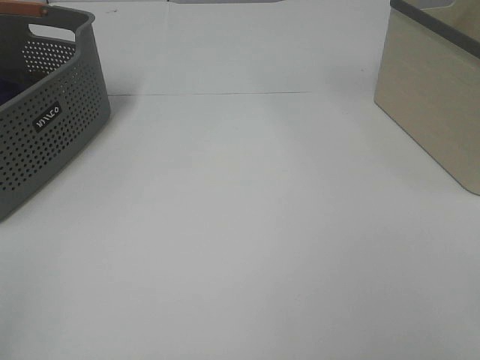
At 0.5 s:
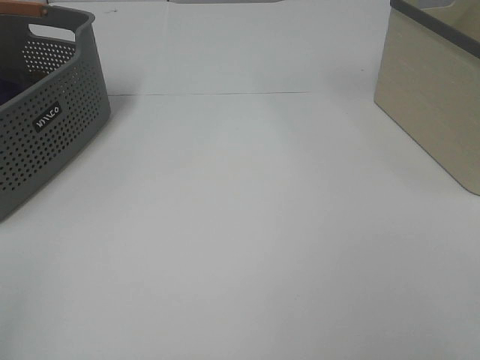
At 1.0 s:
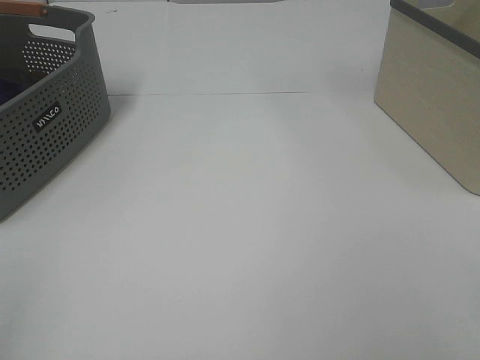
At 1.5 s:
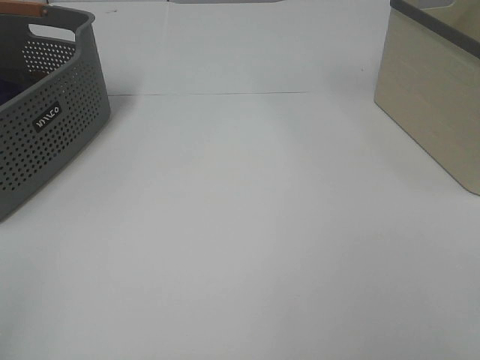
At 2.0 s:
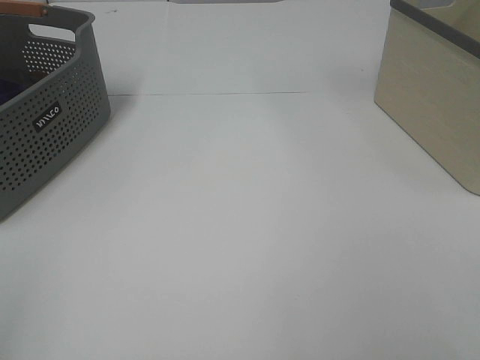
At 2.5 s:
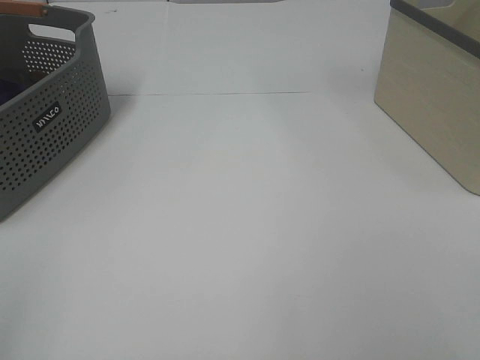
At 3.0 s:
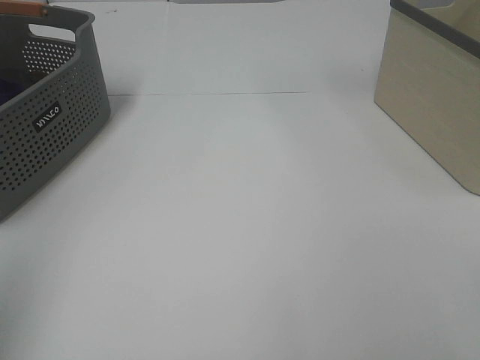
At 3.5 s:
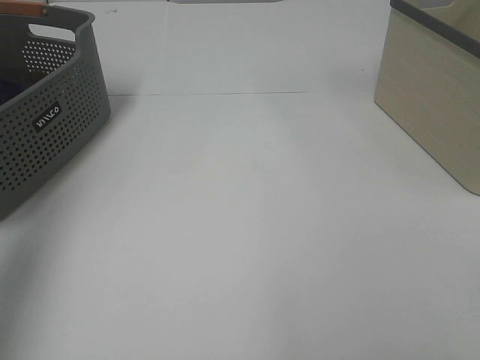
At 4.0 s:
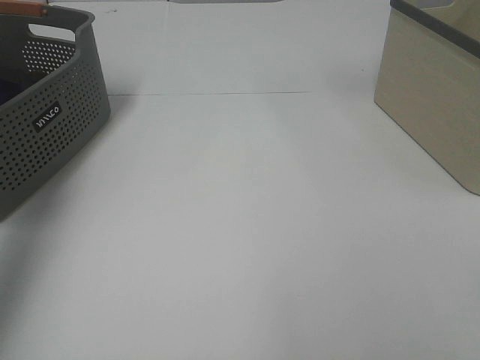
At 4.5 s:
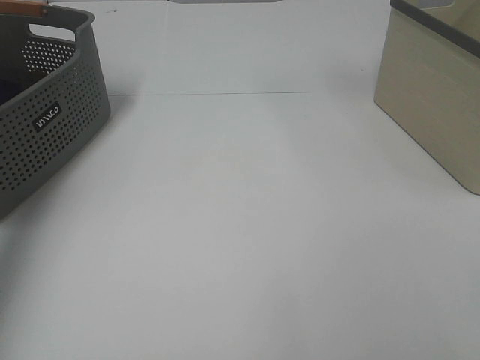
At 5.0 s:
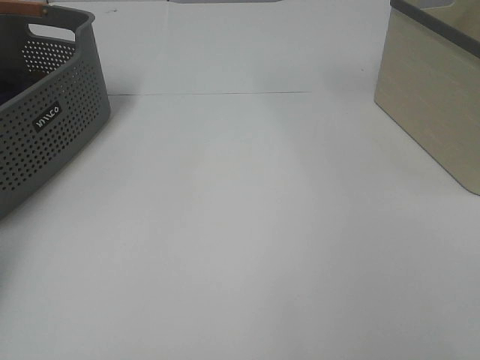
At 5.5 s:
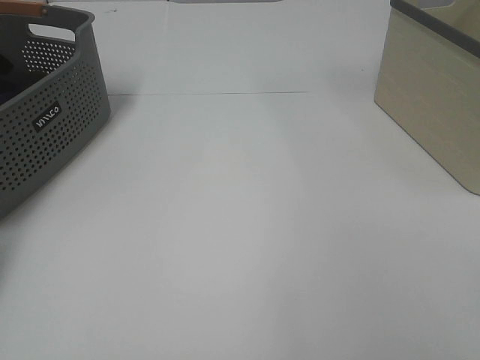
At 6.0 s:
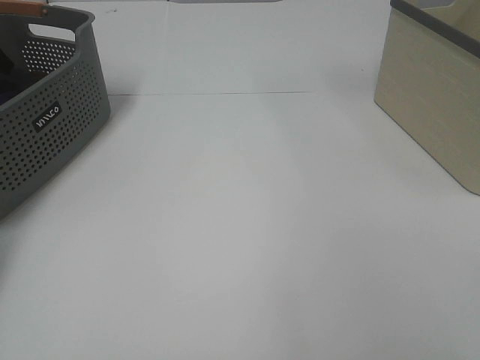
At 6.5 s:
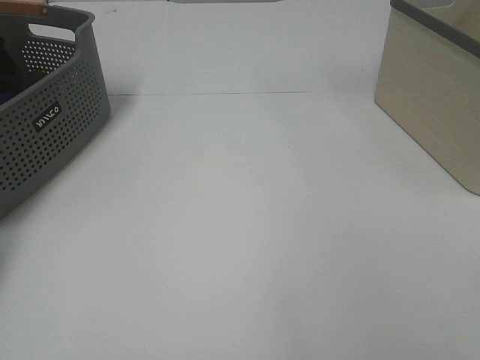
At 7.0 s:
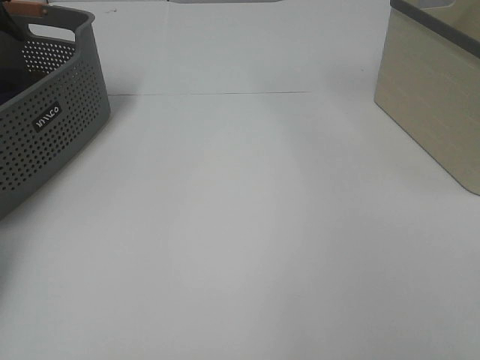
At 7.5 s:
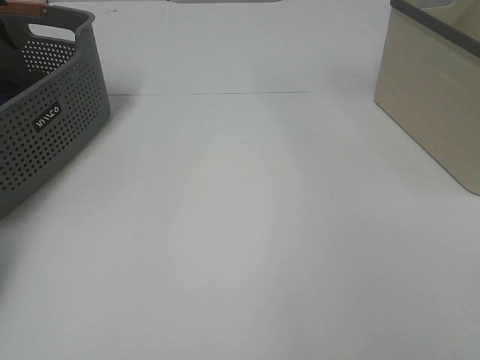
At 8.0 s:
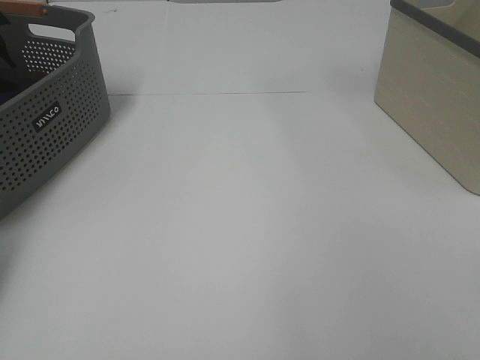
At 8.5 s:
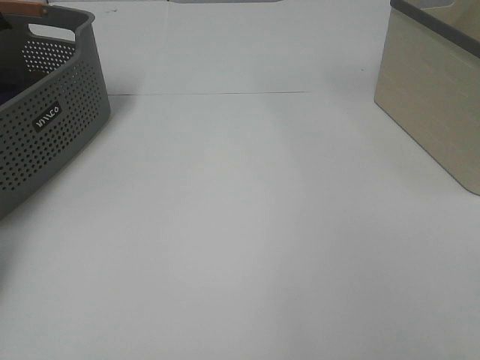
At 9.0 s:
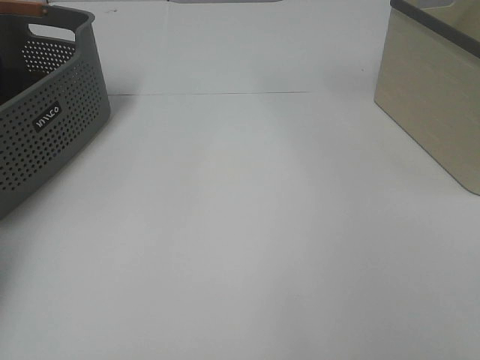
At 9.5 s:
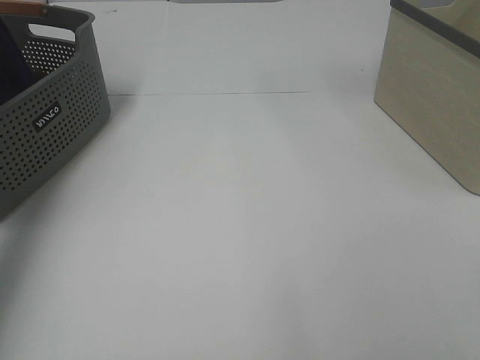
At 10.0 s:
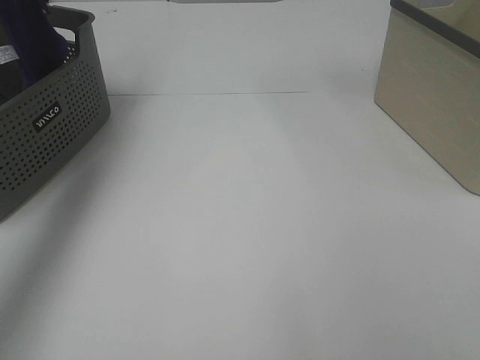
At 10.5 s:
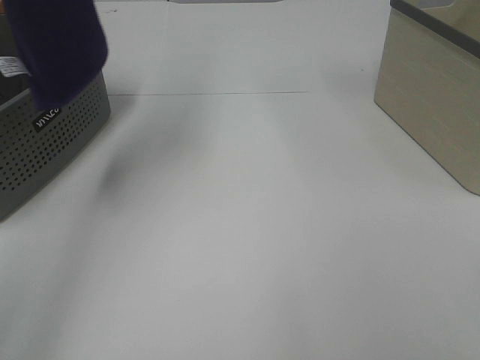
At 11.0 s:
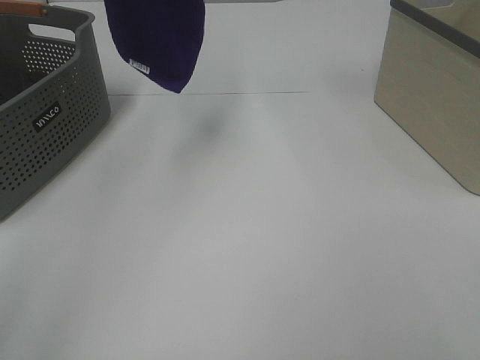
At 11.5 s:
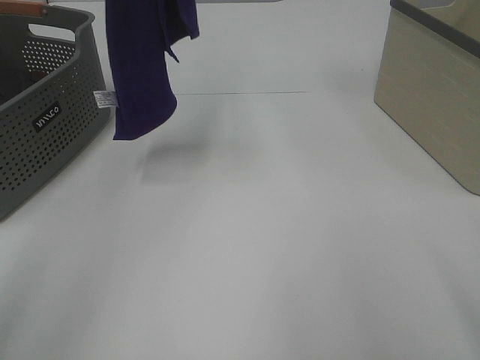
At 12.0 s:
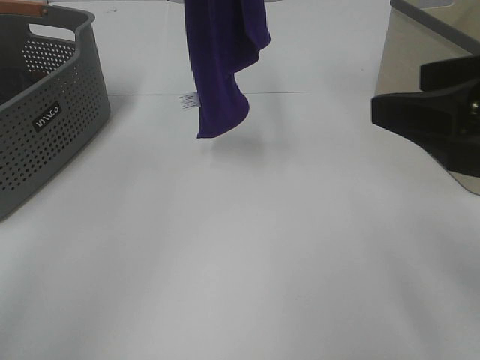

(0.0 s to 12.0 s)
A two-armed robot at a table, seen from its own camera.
Task of the whole recording: Remove the towel and place it.
0.0 s - 2.0 s: The two grippers keep their place.
2.0 s - 4.0 s: The left gripper moves forward, roughly 35 cm.
4.0 s - 6.0 s: The left gripper shifts approximately 25 cm downward and forward.
8.0 s - 10.0 s: The left gripper moves upward and backward, about 35 cm, and closes up.
10.0 s - 12.0 s: The right gripper heads forward and to the left, covering approximately 20 cm; the left gripper goes approximately 20 cm to the right.

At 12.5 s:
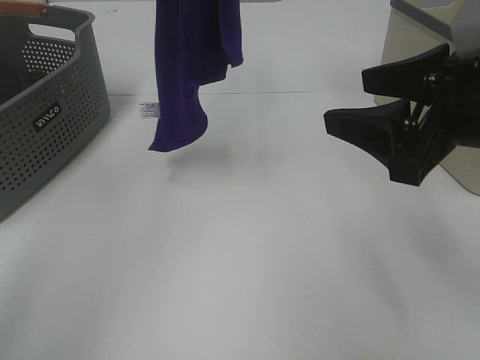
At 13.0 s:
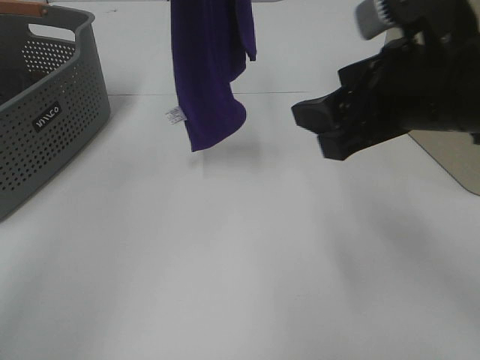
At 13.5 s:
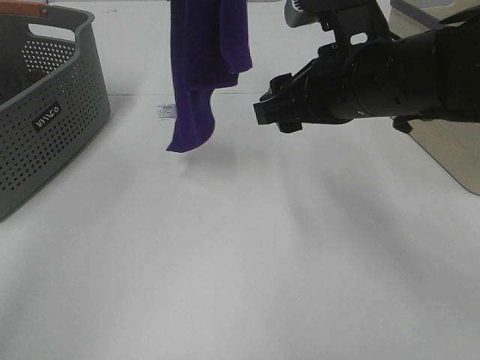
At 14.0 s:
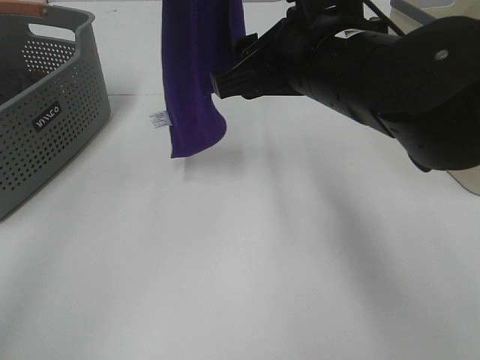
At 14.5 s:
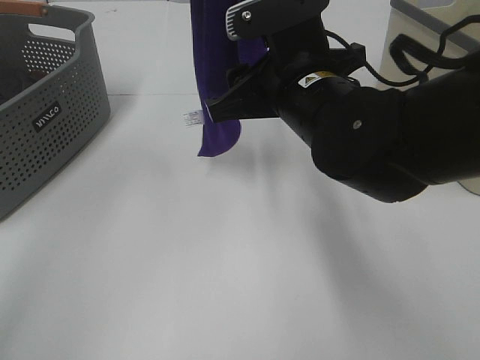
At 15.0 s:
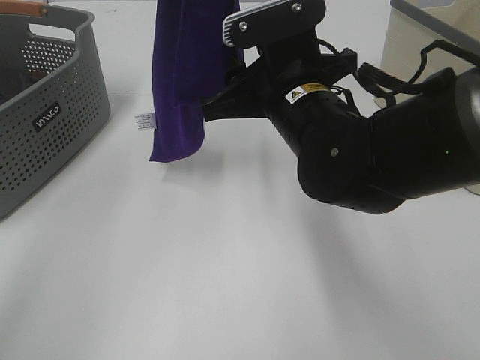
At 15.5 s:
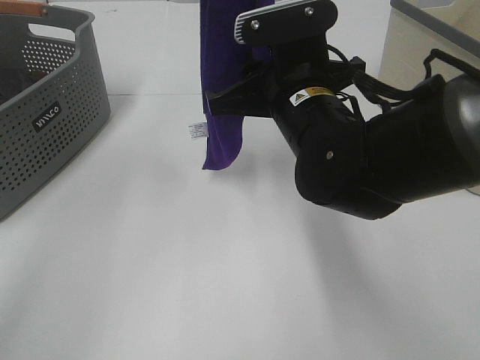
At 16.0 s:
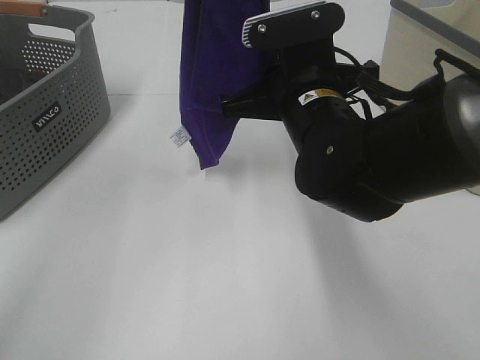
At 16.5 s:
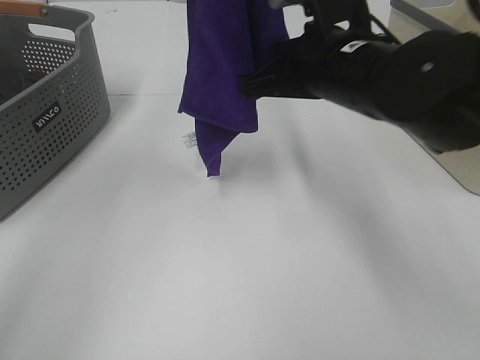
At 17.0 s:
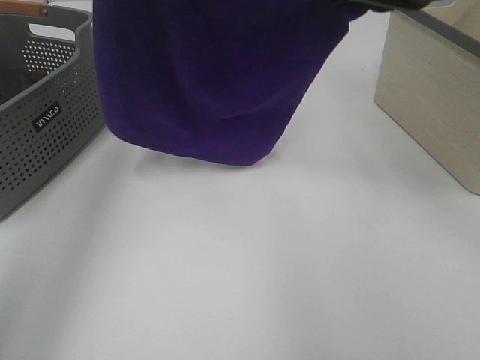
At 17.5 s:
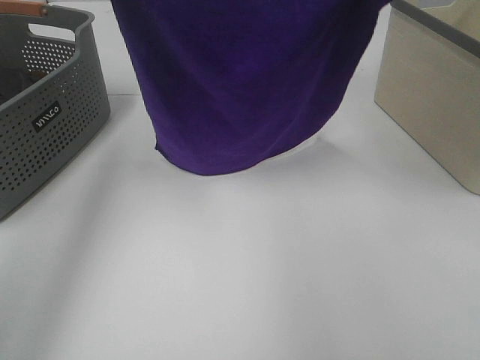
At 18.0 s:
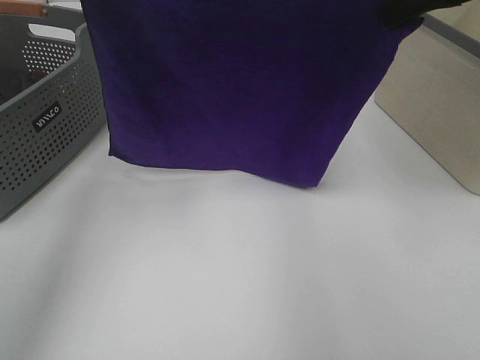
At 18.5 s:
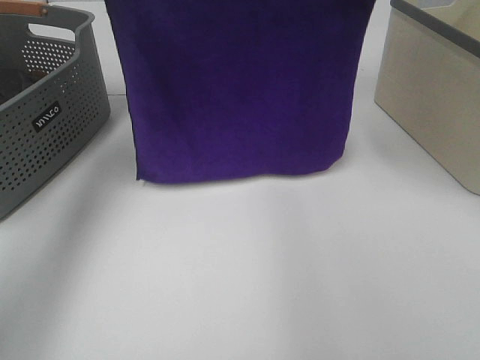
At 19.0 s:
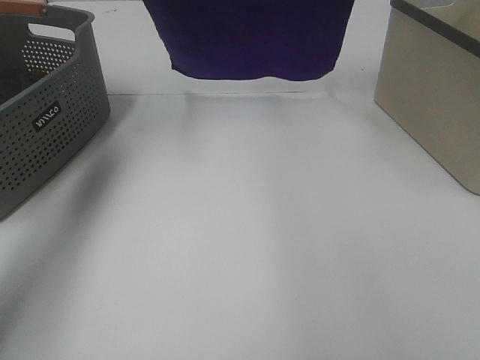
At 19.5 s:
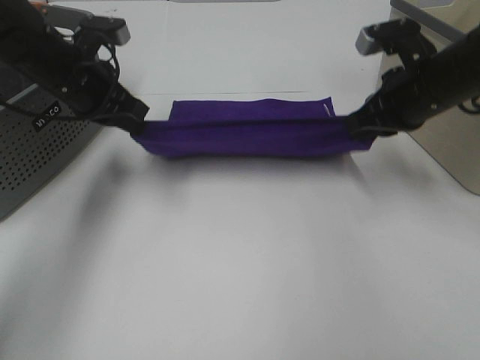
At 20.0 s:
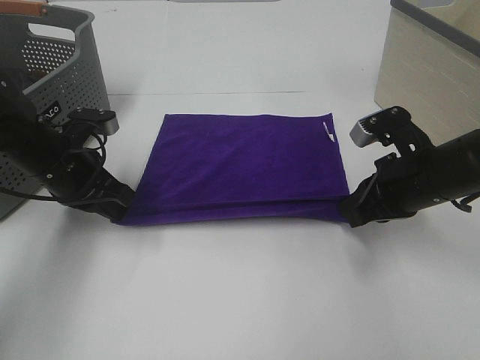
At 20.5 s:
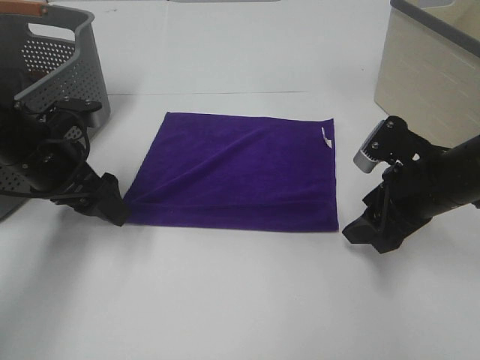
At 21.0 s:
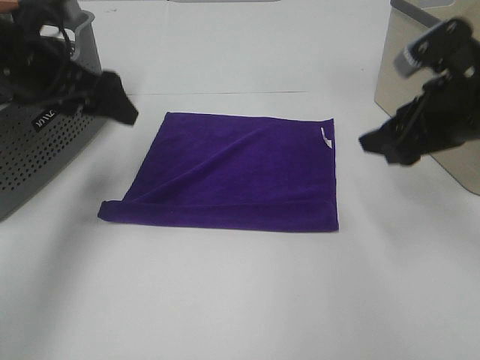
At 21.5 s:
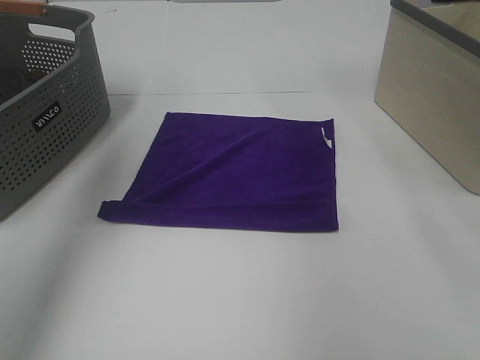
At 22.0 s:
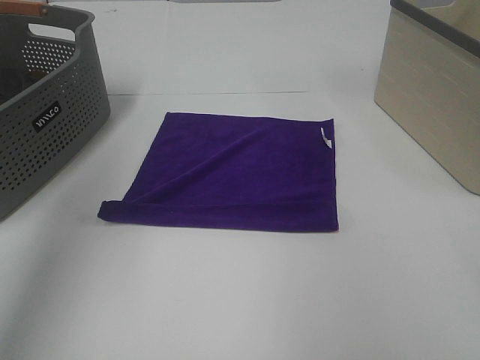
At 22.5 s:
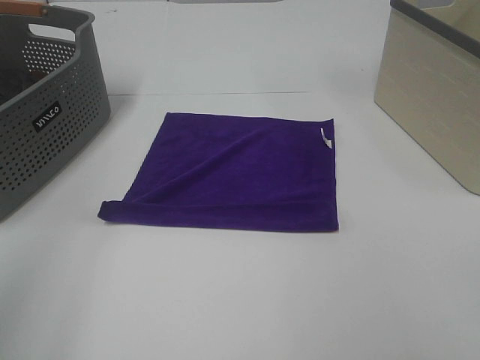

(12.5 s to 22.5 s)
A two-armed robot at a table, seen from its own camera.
Task of the whole recording: Remove the towel and place it.
Step, 14.5 s - 16.0 s: Left hand: spread the purple towel flat on the table.
Step, 14.5 s - 16.0 s: Right hand: spread the purple towel flat on the table.
12.5 s - 14.5 s: The right gripper goes about 15 cm to the left and forward.
14.5 s - 16.5 s: The right gripper closes.
16.5 s - 18.5 s: The right gripper heads upward, to the right and forward, covering about 20 cm. The left gripper is displaced downward, to the left and forward by some 15 cm.
18.5 s - 20.5 s: The right gripper travels downward and backward by about 25 cm, and opens. Meanwhile the left gripper travels downward by roughly 20 cm, and opens up.
20.5 s - 22.5 s: Both grippers move backward and upward, some 30 cm.

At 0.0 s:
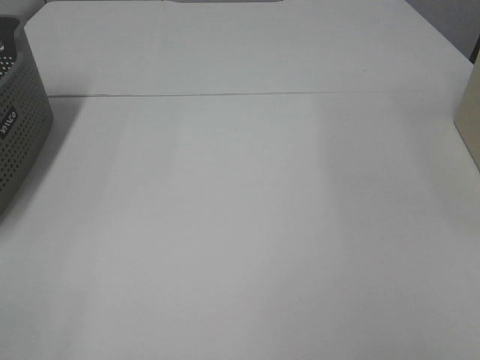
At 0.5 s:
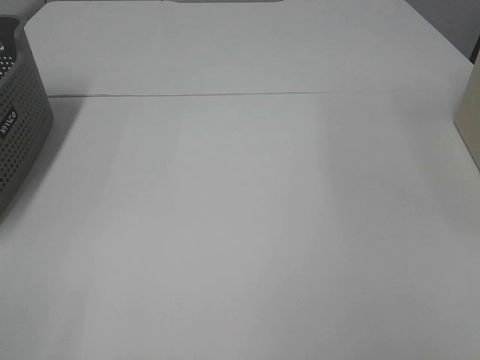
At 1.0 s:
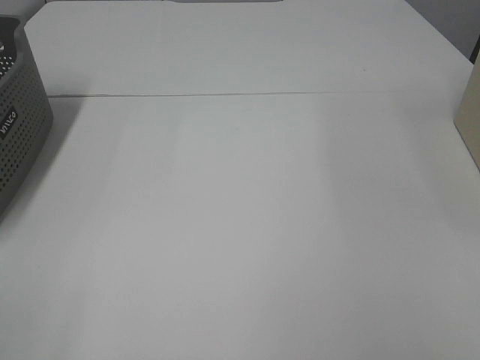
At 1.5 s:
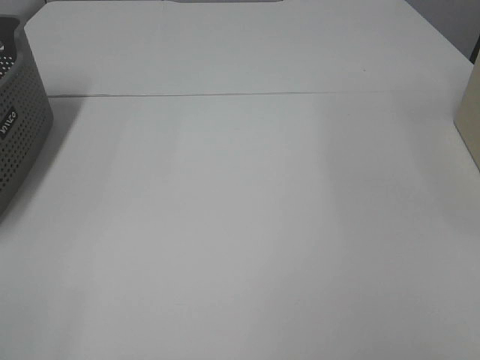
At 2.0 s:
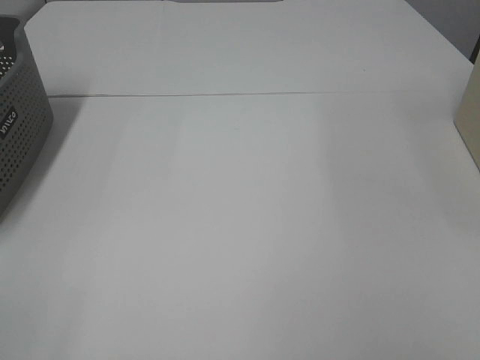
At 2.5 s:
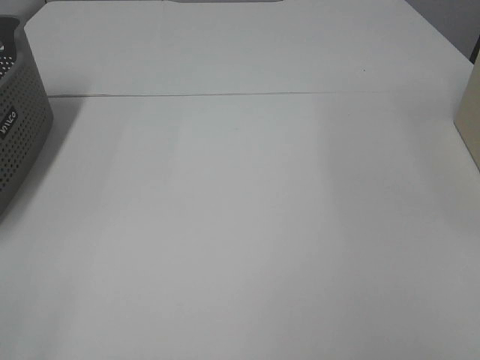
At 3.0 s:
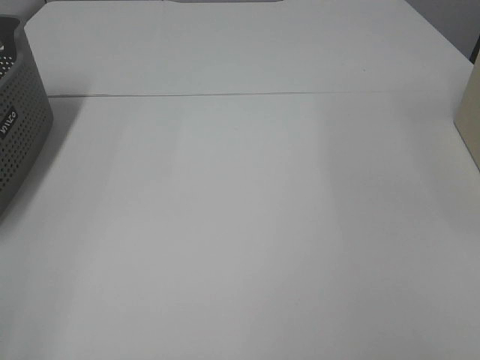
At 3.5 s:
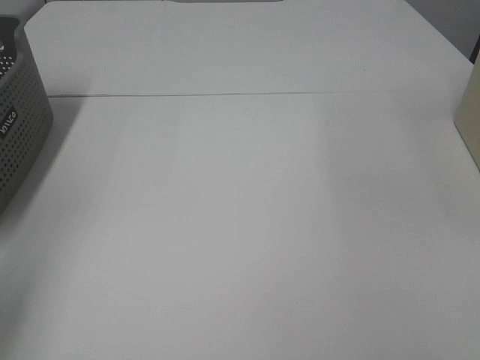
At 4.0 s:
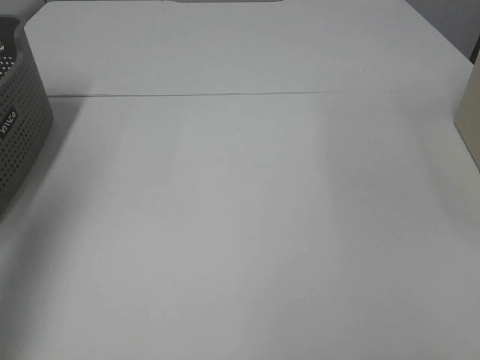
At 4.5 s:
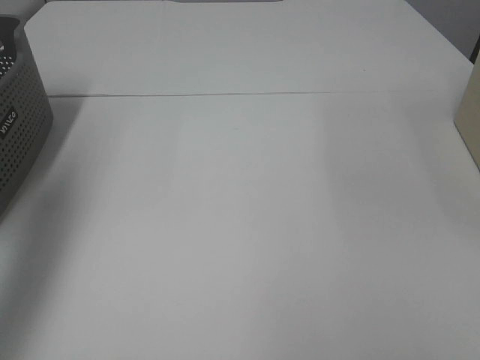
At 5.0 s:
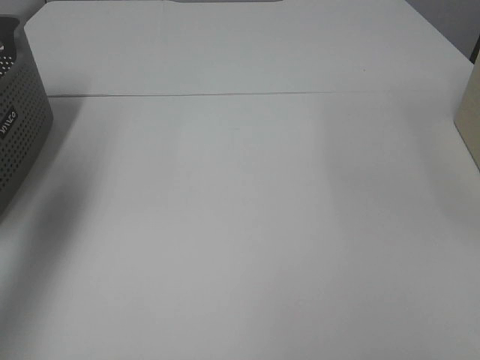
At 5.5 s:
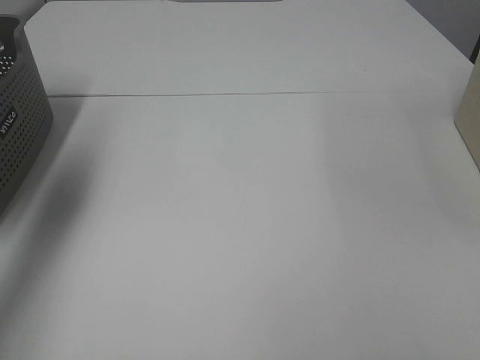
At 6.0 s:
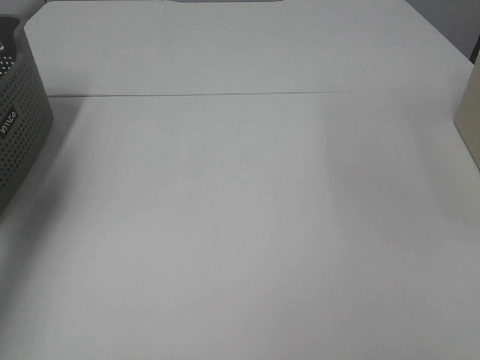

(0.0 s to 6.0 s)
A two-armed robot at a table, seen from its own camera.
Task of the whole recording: Remove the towel and place it.
0.0 s - 2.0 s: Both grippers stay put.
2.0 s - 4.0 s: The left gripper travels forward by about 20 cm.
4.0 s - 6.0 s: The left gripper goes some 25 cm forward and downward.
